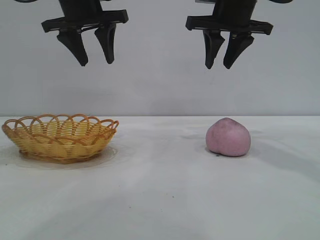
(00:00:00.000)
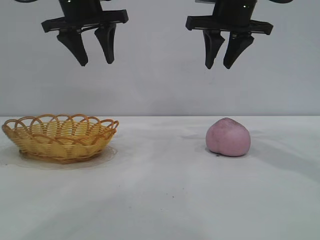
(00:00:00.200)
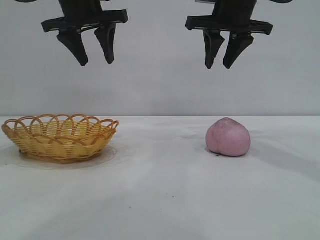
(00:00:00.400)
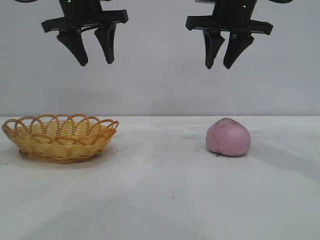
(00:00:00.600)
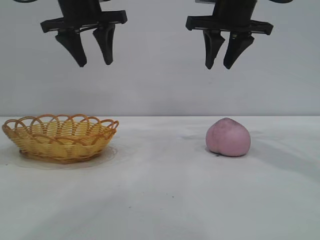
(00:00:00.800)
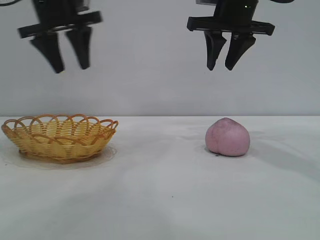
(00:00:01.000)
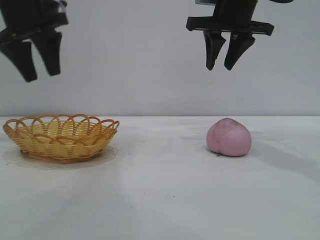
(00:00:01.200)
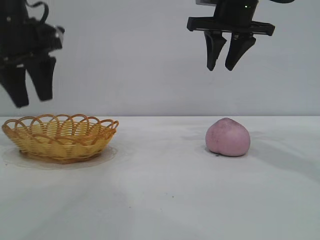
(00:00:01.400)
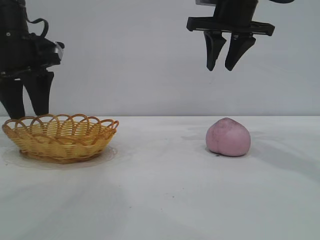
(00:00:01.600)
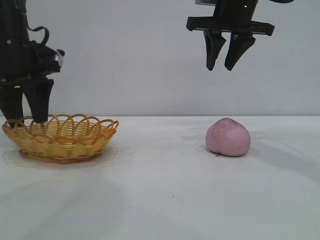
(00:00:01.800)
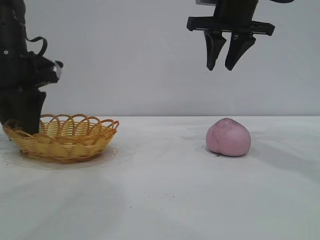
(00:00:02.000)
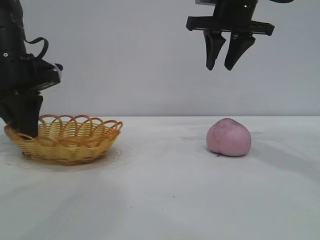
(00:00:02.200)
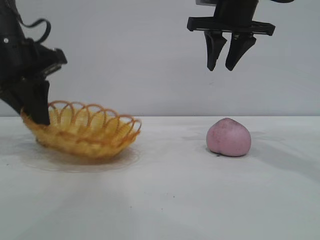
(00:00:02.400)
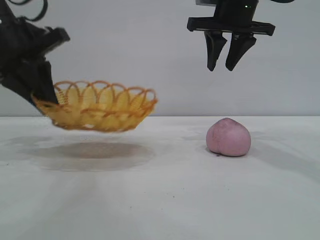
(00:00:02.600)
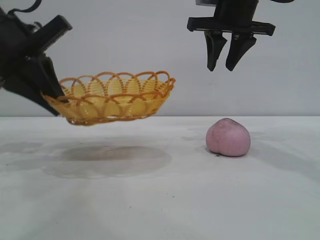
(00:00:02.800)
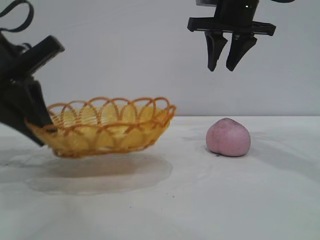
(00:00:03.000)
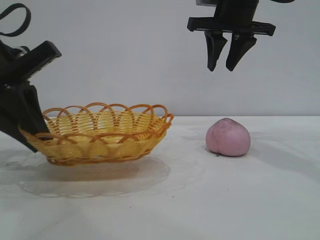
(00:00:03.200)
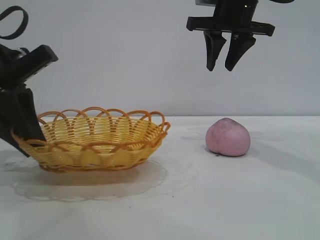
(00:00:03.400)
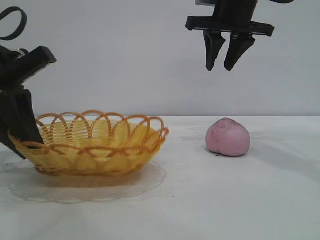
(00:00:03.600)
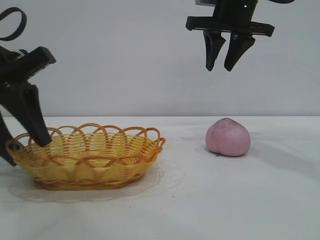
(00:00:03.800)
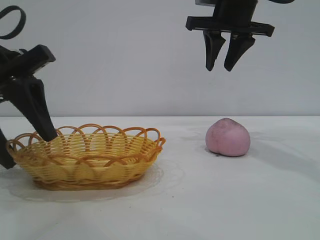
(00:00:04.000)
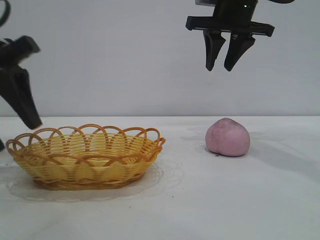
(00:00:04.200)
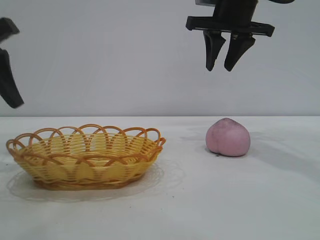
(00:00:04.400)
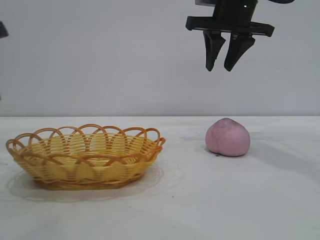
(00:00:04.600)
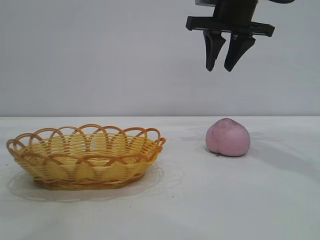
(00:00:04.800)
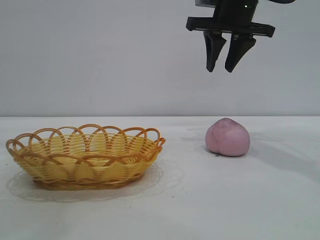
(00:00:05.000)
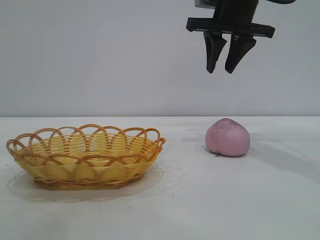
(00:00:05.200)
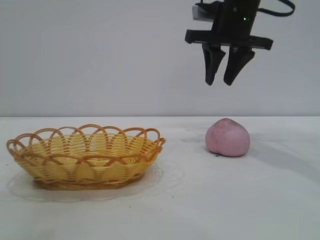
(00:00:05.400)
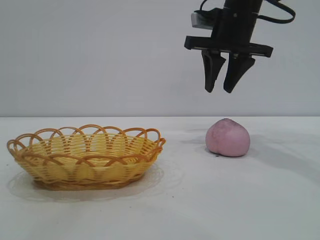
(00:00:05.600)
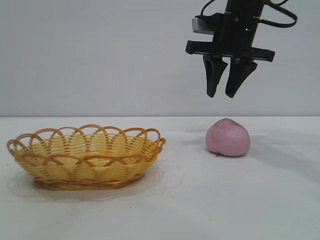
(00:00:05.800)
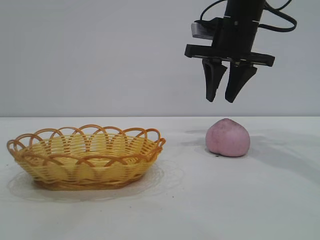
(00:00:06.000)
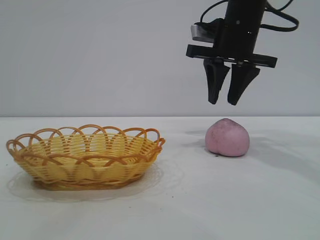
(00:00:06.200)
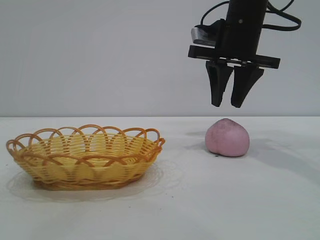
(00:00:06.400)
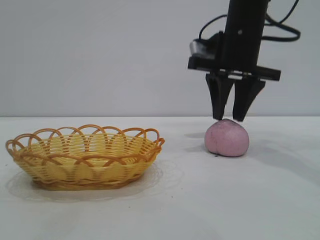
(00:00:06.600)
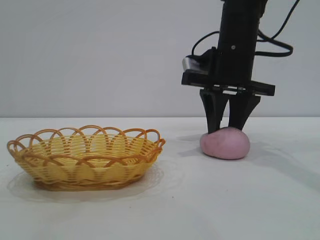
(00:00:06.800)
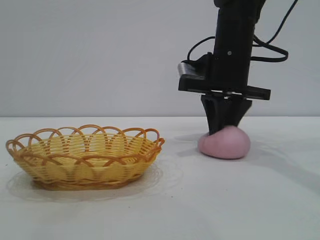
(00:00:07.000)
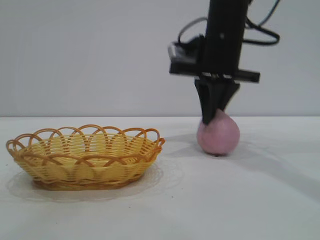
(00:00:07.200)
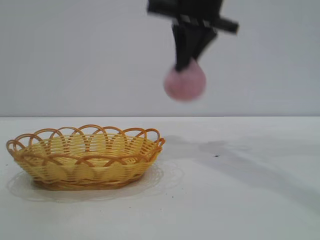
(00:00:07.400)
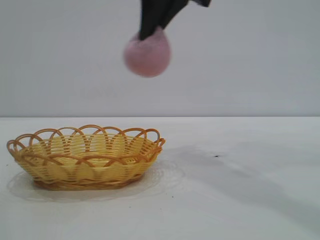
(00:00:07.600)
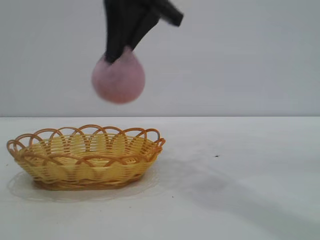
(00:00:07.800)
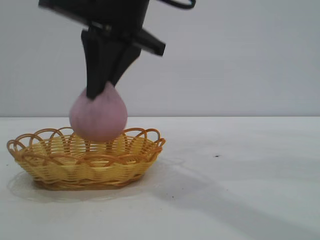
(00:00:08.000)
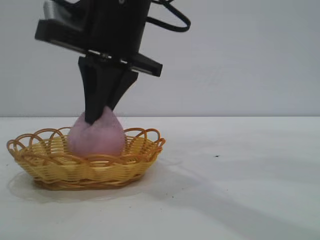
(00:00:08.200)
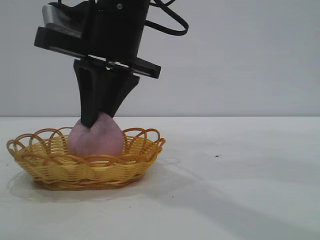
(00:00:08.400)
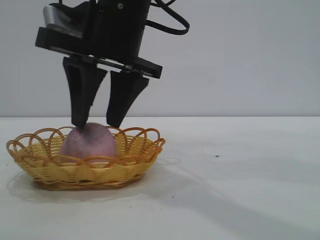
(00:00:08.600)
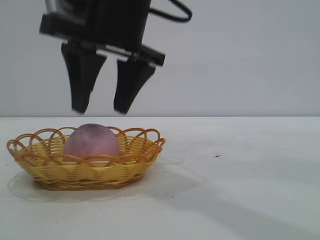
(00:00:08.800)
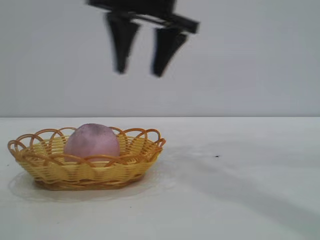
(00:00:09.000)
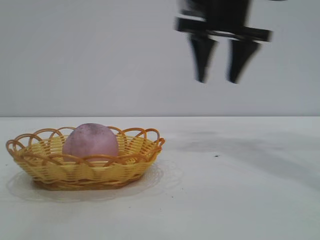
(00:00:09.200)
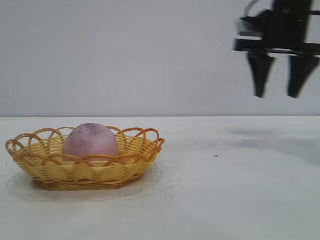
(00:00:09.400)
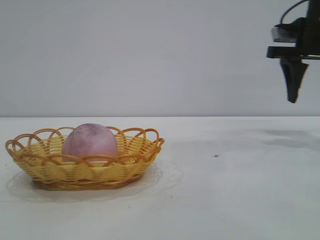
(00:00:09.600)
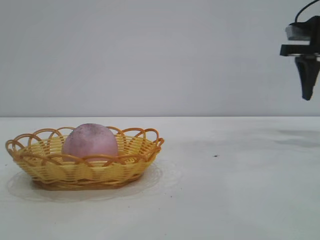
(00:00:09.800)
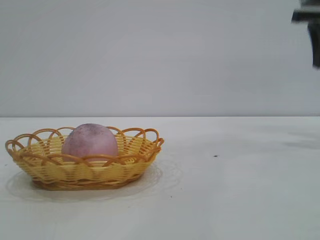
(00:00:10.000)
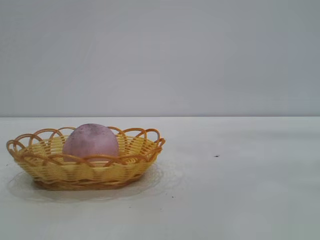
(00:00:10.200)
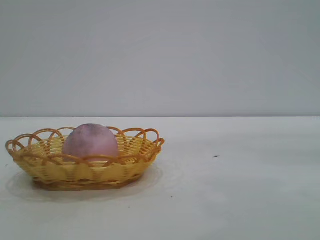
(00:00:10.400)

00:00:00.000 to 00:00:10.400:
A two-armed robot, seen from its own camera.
Task of the whole recording: pick up the peach and put it into the basket.
Step, 00:00:00.000 to 00:00:04.400: Move the basket to the center of view.
Step, 00:00:04.600 to 00:00:07.200: Pick up the peach.
Step, 00:00:07.400 to 00:00:08.800: place the peach into the basket.
